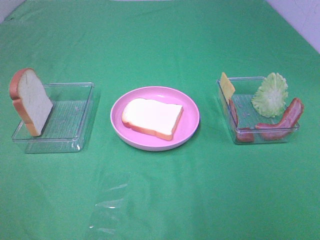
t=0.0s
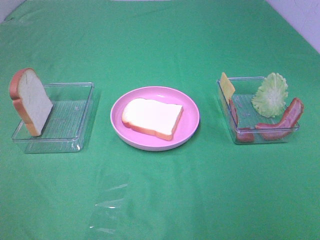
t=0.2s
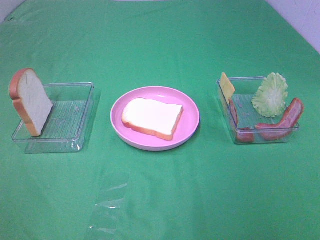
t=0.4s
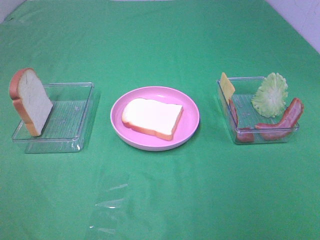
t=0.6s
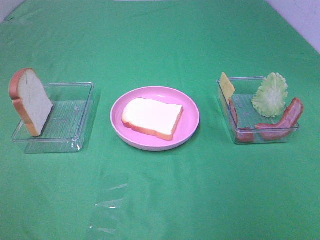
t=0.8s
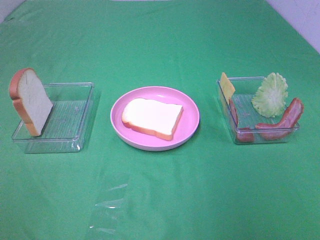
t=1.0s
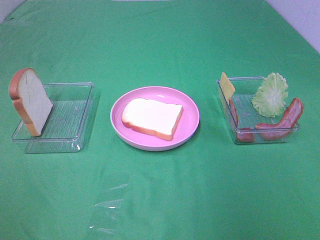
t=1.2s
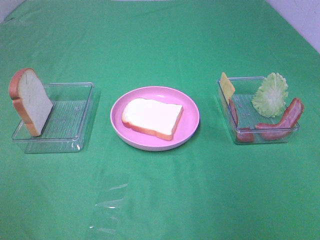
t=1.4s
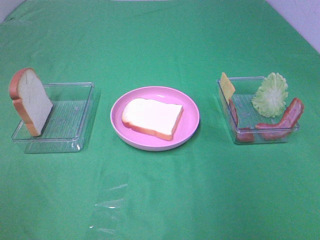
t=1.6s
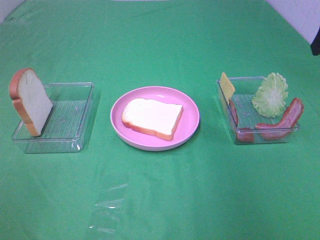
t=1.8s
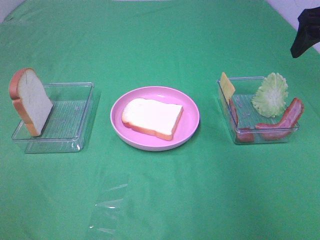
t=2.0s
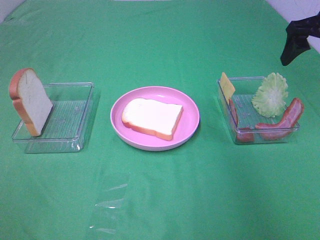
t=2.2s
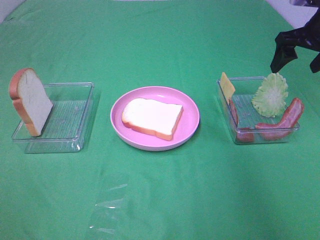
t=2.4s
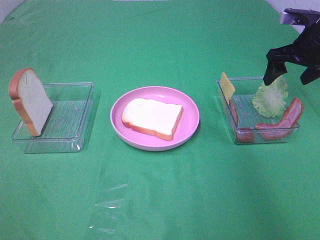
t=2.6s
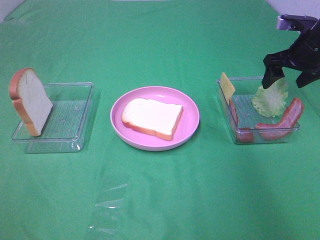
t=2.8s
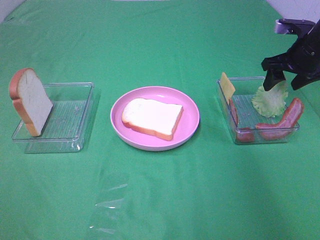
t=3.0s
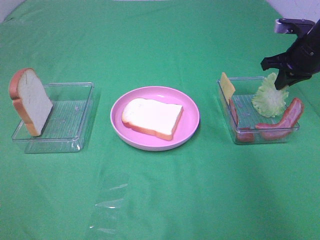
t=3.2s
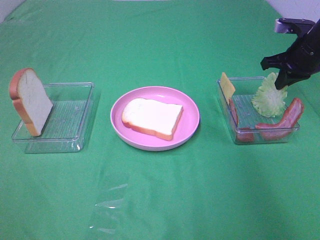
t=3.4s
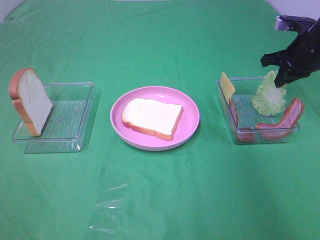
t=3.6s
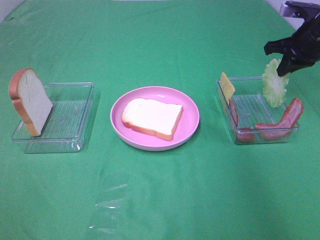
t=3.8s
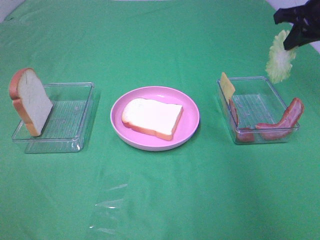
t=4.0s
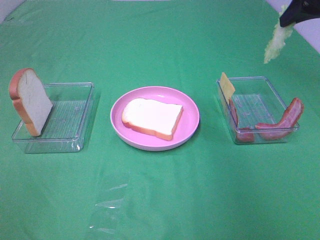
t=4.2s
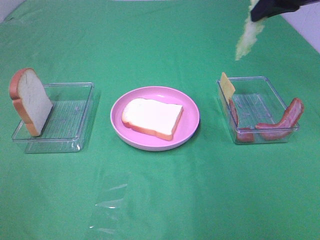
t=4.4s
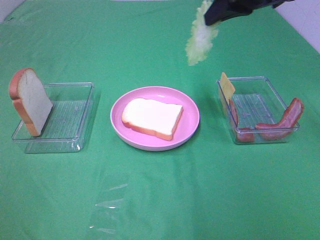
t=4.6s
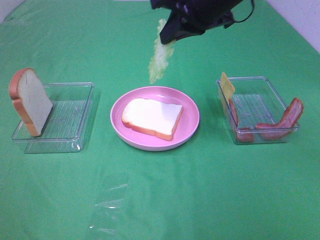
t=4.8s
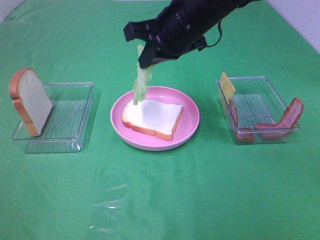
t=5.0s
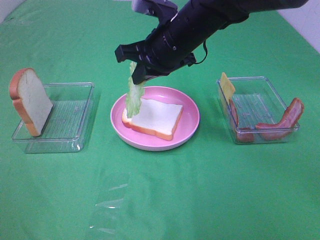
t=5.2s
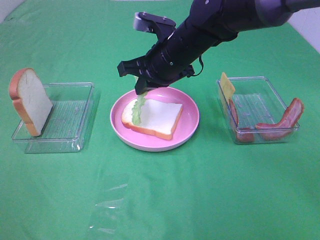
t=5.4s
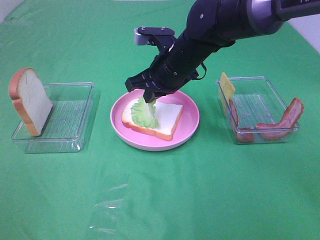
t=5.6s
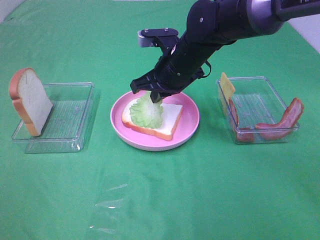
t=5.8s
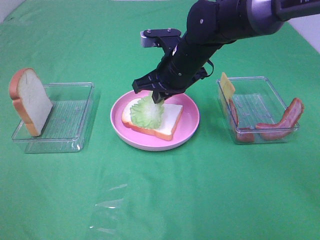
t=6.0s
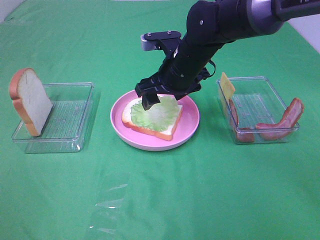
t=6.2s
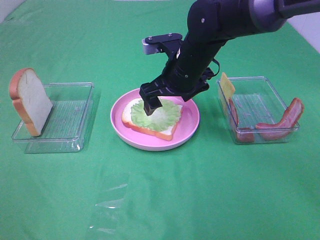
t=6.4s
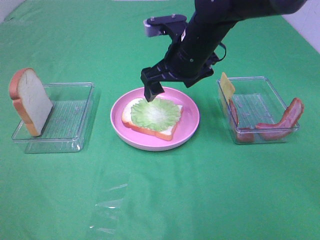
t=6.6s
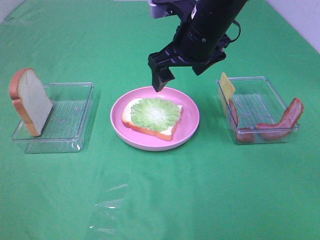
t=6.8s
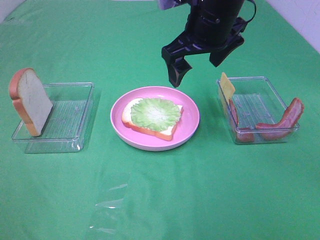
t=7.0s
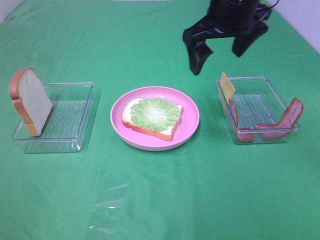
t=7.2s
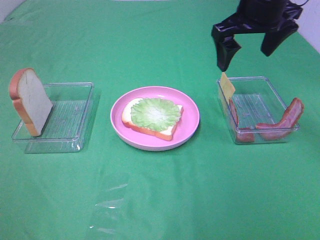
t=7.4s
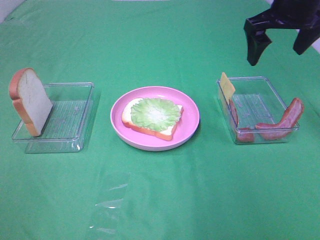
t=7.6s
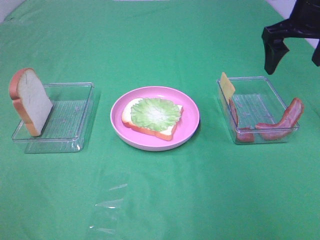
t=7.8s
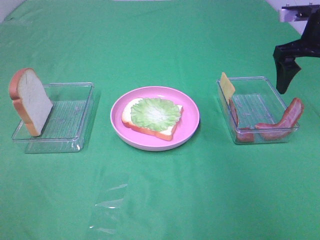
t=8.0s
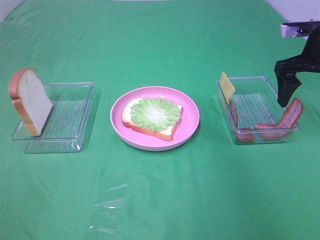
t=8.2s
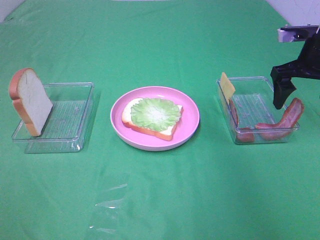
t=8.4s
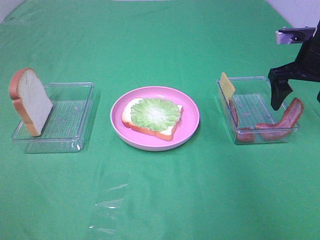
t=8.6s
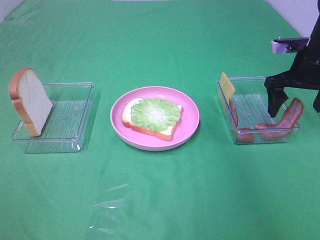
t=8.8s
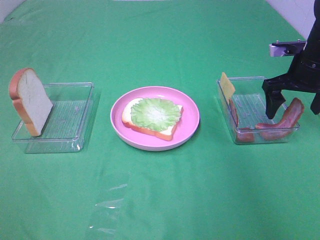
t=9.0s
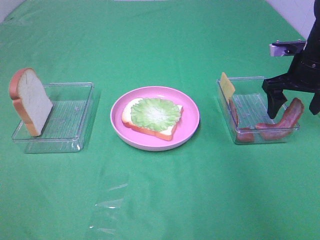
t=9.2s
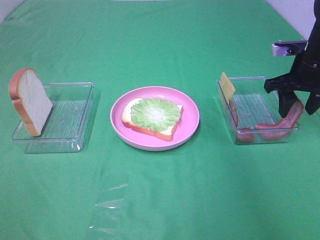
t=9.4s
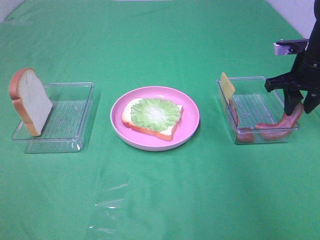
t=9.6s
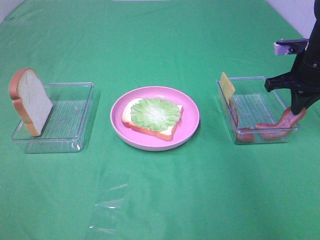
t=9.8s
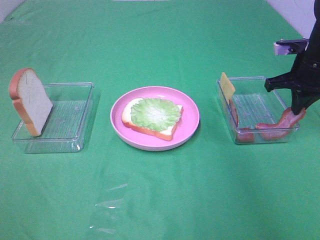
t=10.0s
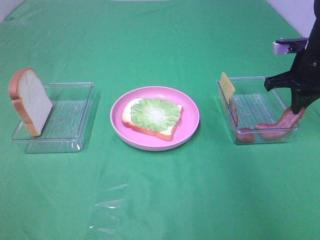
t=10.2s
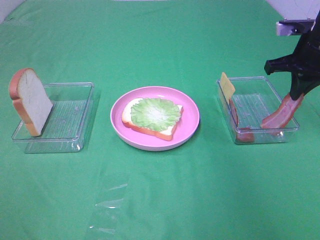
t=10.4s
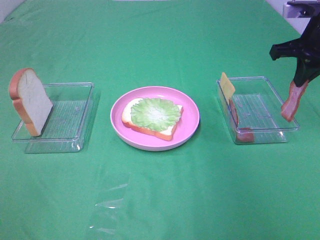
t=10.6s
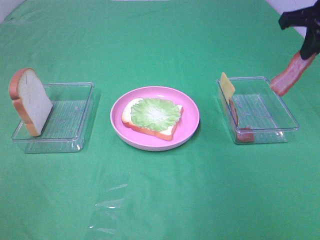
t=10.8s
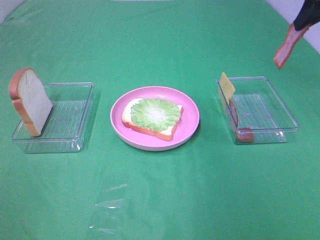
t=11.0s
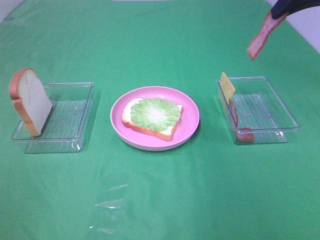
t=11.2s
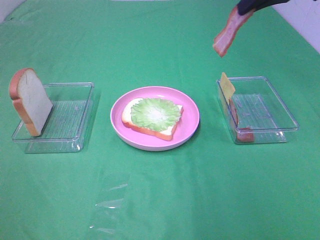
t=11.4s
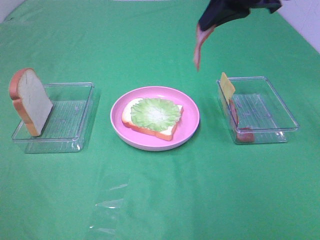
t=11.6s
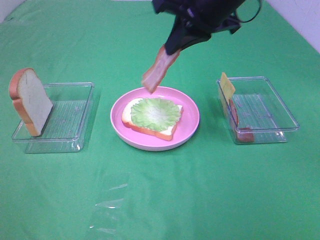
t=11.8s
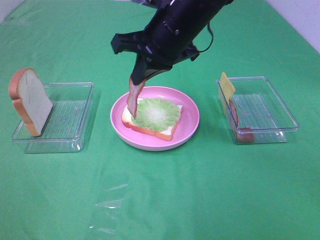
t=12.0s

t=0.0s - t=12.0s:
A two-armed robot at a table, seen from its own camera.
Task of the whole recording: Make sandwiches.
Step, t=0.0s - t=3.4s: Right hand:grab the lettuce slice.
Step, t=3.6s - t=6.4s: Right hand:place the lettuce slice on the bread slice.
Step, t=6.6s - t=9.8s: Right hand:grab the bacon.
t=1.6s - t=3.0s: The right gripper travels forward and downward by approximately 25 cm.
t=3.0s - t=4.4s: The right gripper moves upward and to the left, about 20 cm, and closes up.
t=4.4s - t=6.0s: The right gripper moves to the left and downward, about 25 cm.
t=6.0s - t=7.6s: The right gripper moves to the right and upward, about 20 cm, and opens up.
t=7.6s - t=9.0s: The right gripper travels downward and to the right by about 15 cm.
t=9.0s - t=10.4s: The right gripper closes its fingers.
t=10.4s - t=12.0s: The right gripper heads to the left, covering roughly 25 cm.

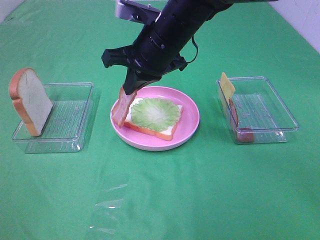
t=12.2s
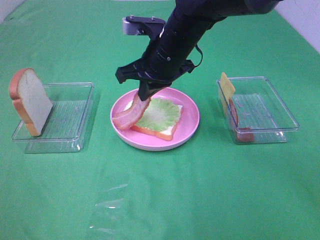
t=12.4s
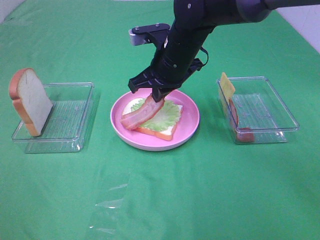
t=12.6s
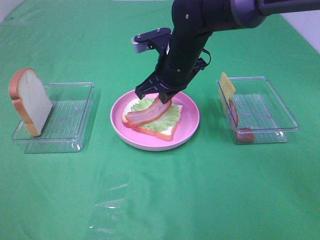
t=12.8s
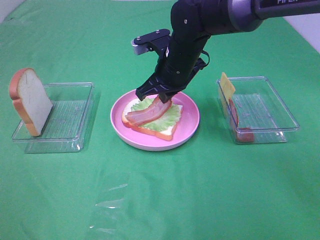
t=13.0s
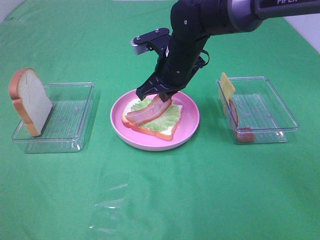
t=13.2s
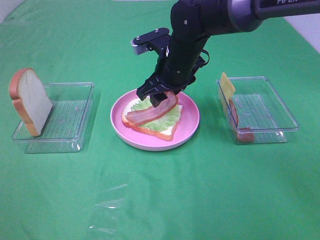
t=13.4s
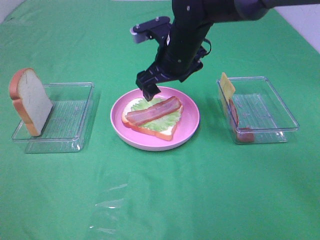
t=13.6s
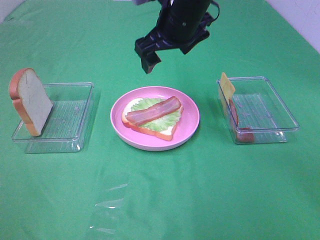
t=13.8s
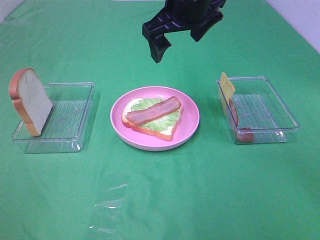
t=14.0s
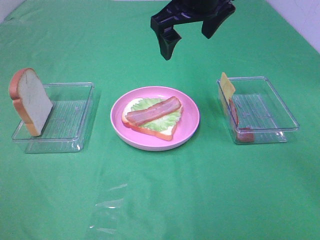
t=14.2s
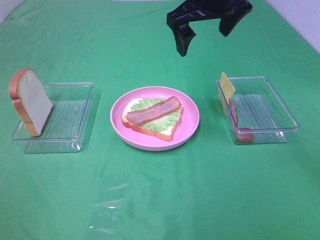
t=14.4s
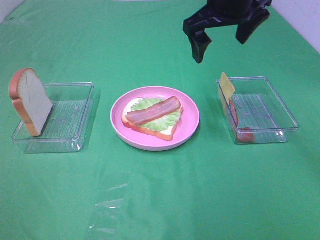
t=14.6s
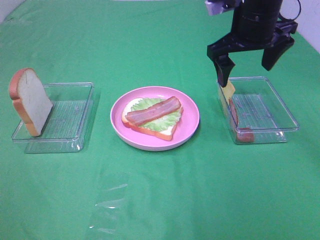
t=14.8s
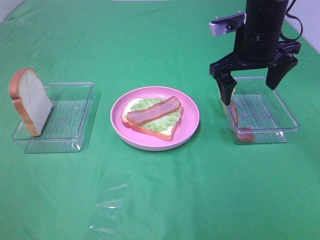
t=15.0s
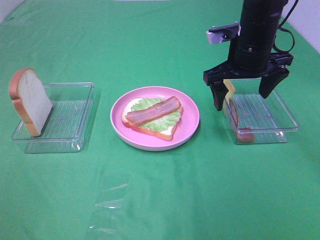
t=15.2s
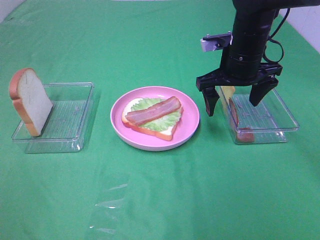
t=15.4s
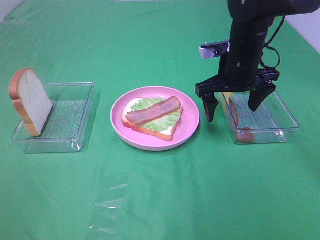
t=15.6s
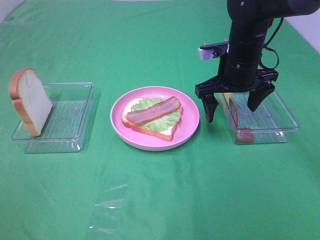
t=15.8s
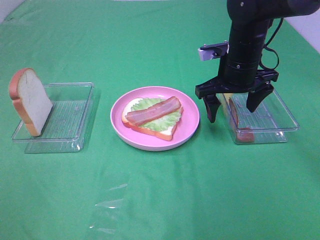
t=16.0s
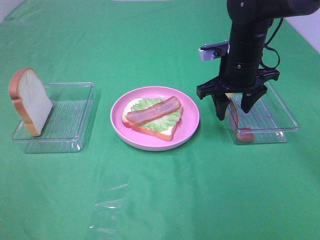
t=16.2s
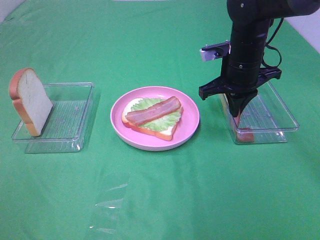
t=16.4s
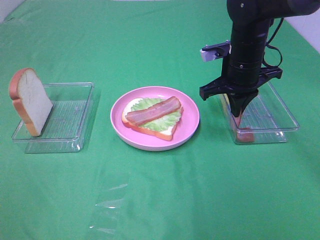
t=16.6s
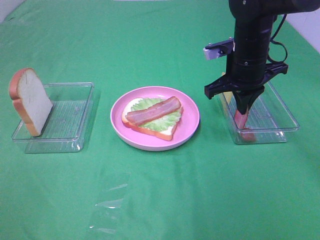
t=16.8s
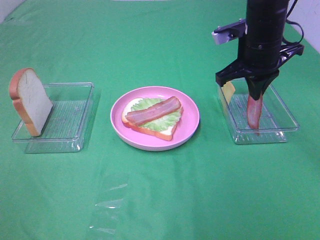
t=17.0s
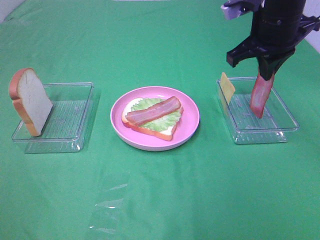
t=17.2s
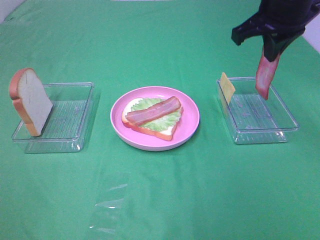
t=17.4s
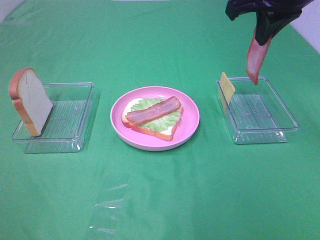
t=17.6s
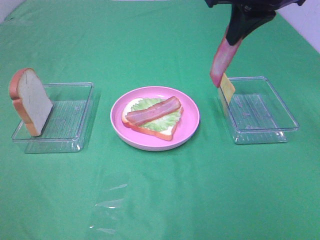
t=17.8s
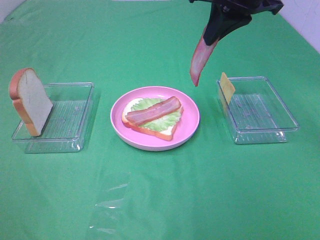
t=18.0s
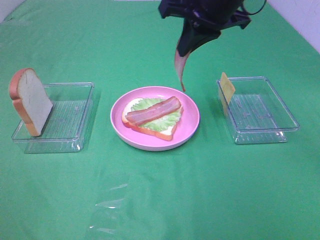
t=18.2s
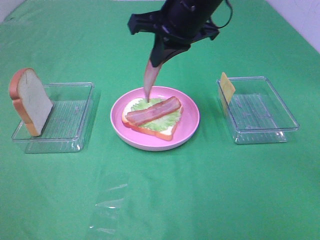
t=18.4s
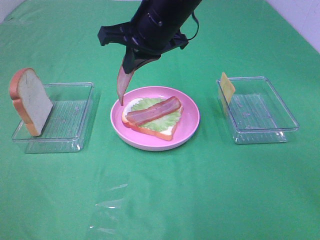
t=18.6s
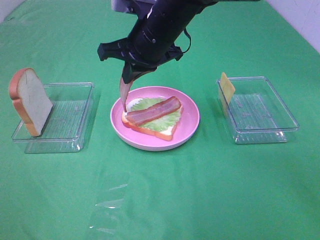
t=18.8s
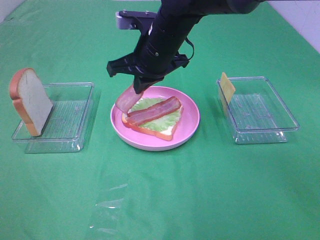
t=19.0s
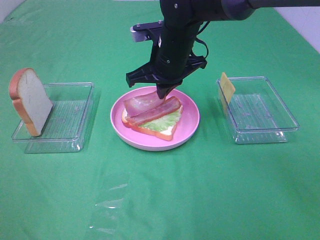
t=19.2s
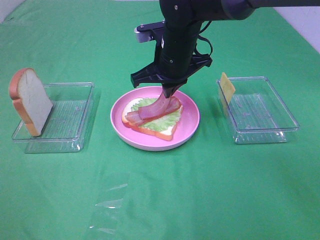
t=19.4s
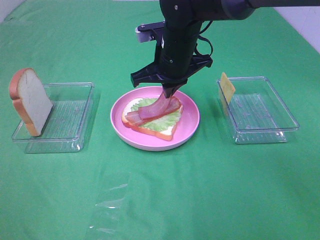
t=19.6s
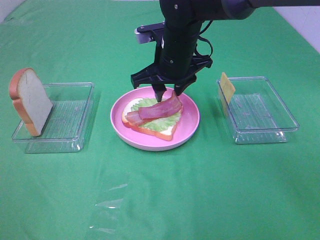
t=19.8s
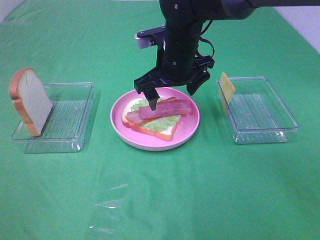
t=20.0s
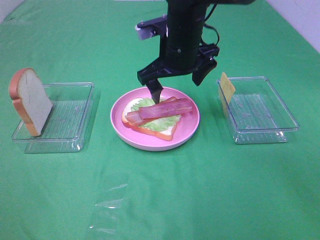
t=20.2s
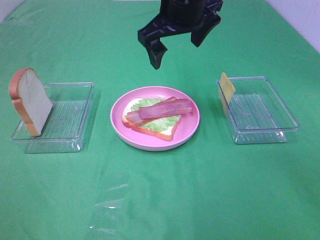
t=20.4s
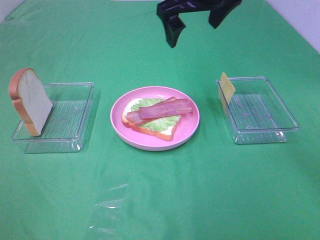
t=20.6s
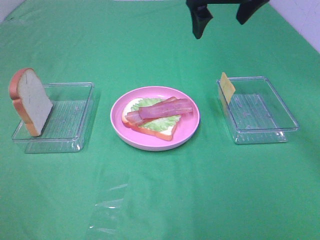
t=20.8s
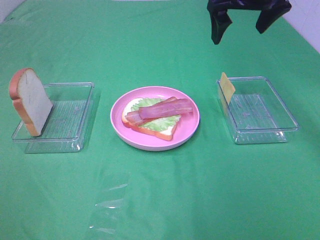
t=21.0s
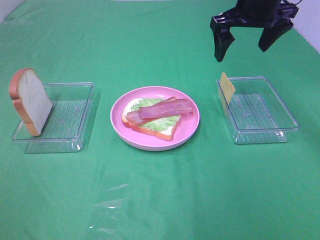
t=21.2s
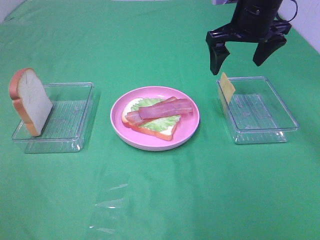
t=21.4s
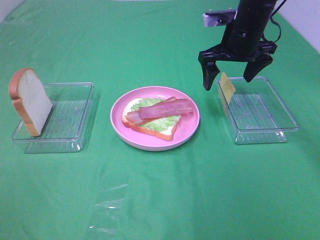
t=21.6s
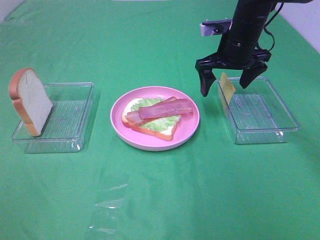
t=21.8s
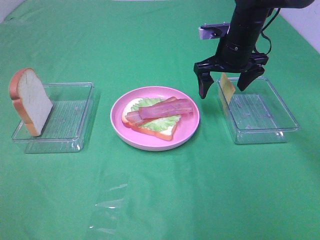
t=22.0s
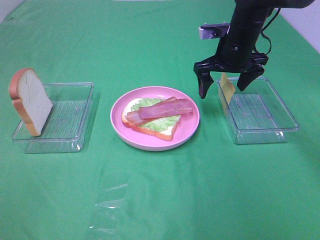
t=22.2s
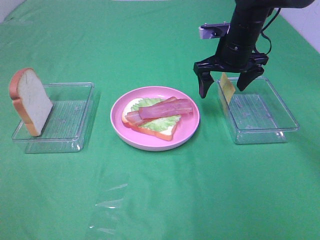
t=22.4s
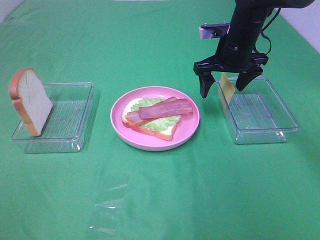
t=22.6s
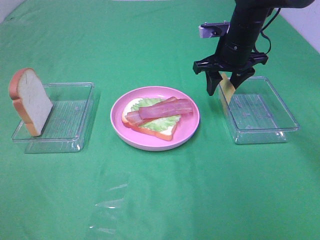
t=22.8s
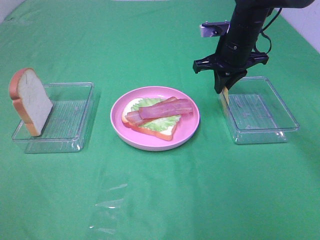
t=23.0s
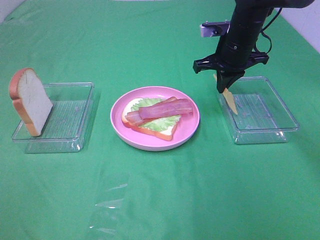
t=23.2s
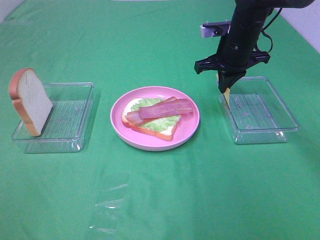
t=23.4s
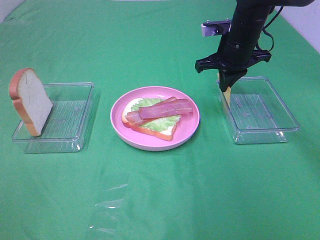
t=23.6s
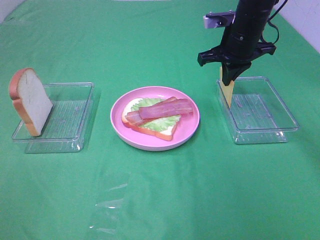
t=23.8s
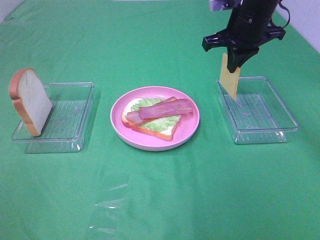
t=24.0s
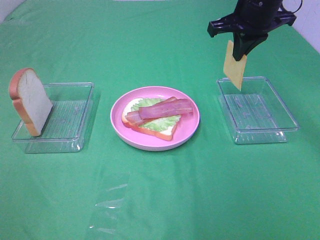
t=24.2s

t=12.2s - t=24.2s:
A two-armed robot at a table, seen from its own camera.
Task of the whole recording: Make sandwiches.
Step, t=13.6s - t=16.6s: Right hand:grab the bacon.
Step, t=16.8s - t=20.0s: Right hand:place bacon on bacon.
Step, t=20.2s - t=23.2s: Right hand:grab the cheese slice.
t=12.2s - t=13.8s: The right gripper shifts by some 5 cm, and opens its fingers.
t=13.8s - t=15.2s: The right gripper goes some 10 cm to the right and downward.
t=15.2s - t=16.6s: The right gripper closes its fingers.
t=16.6s - t=18.2s: The right gripper travels upward and to the left by about 15 cm.
t=18.2s - t=19.8s: The right gripper heads downward and to the left, covering about 15 cm, and opens.
t=19.8s - t=21.2s: The right gripper is displaced to the right and upward by some 15 cm, and opens up.
t=21.2s - t=22.6s: The right gripper is displaced downward by approximately 10 cm.
t=22.6s - t=24.2s: The right gripper is displaced upward by about 10 cm, and closes.
